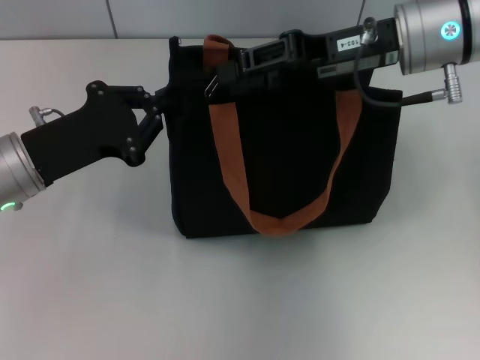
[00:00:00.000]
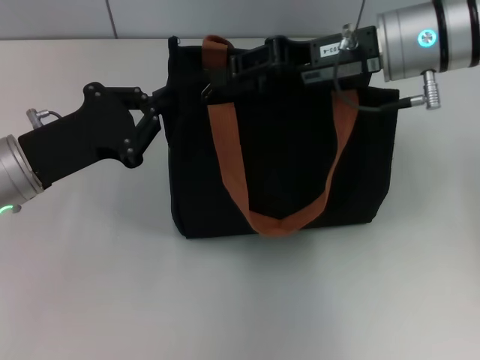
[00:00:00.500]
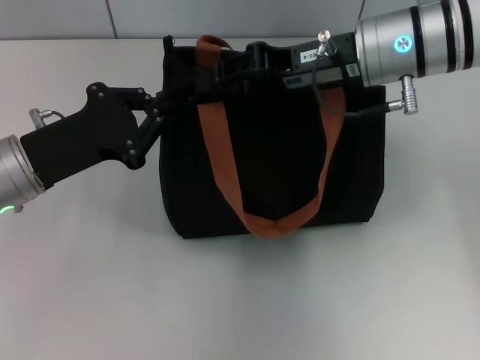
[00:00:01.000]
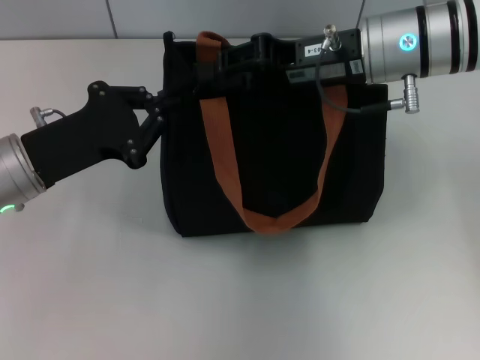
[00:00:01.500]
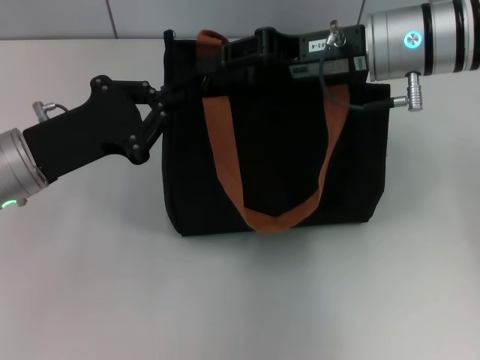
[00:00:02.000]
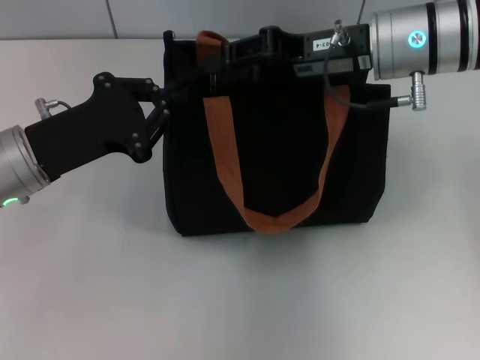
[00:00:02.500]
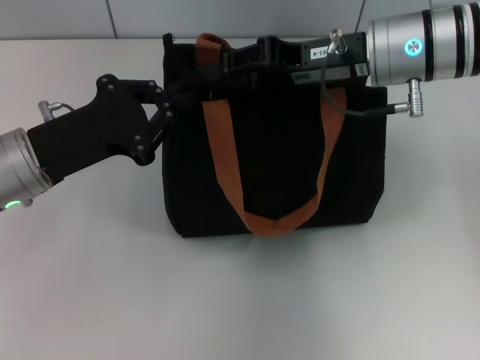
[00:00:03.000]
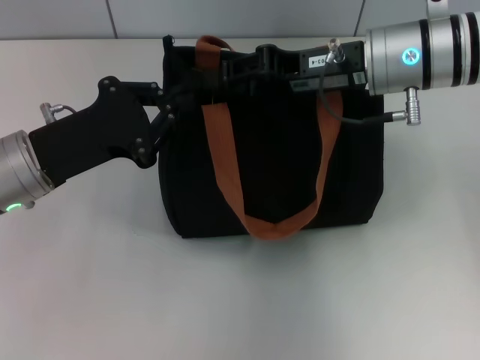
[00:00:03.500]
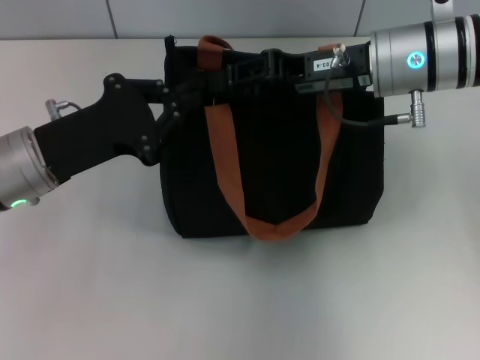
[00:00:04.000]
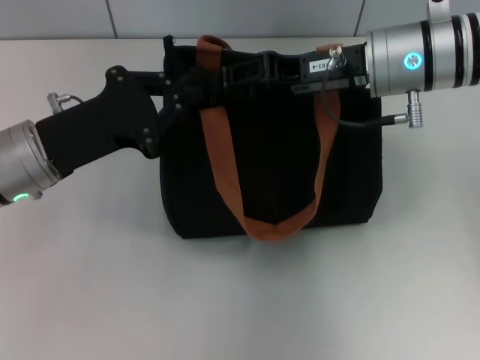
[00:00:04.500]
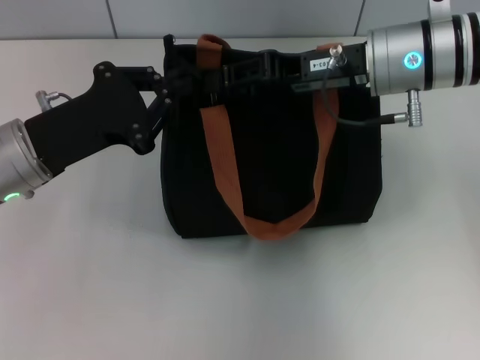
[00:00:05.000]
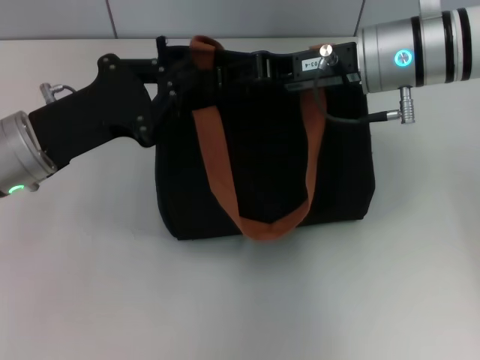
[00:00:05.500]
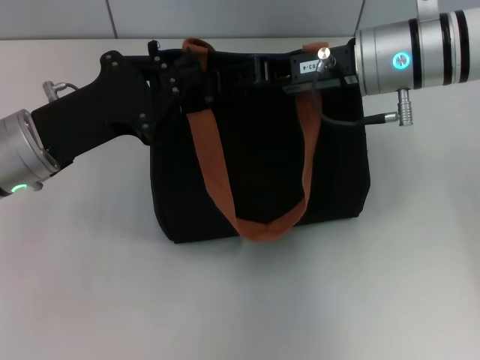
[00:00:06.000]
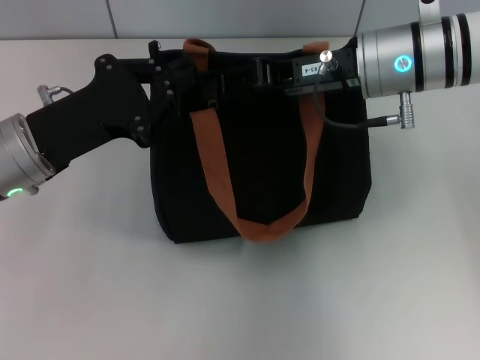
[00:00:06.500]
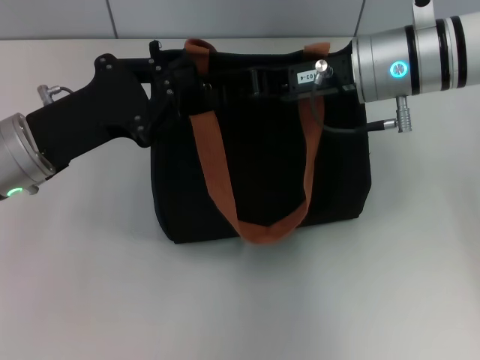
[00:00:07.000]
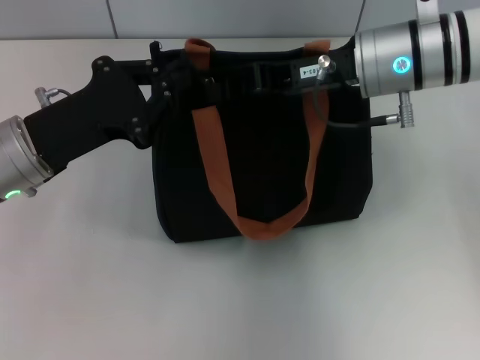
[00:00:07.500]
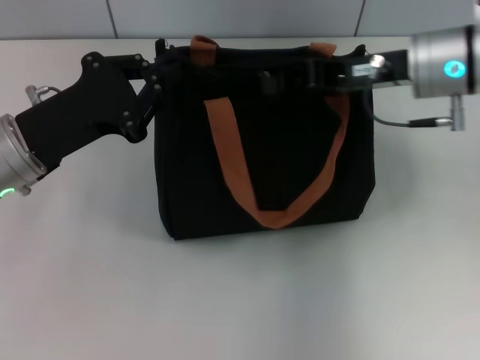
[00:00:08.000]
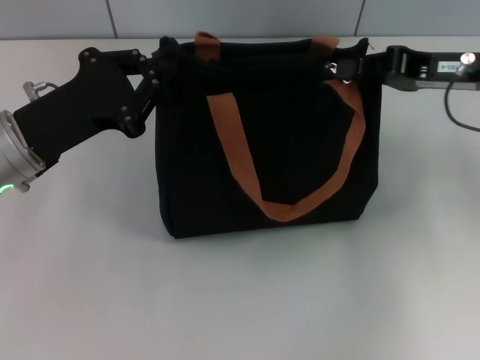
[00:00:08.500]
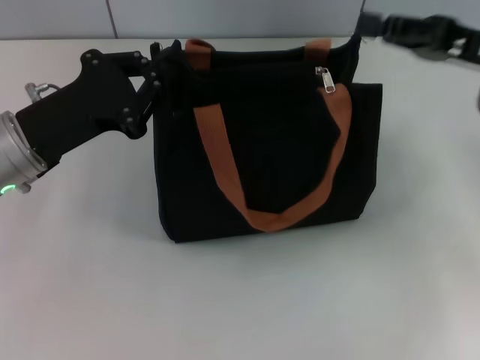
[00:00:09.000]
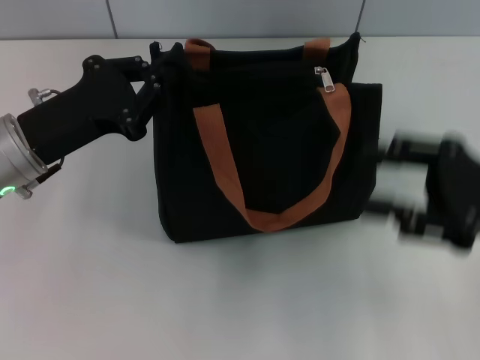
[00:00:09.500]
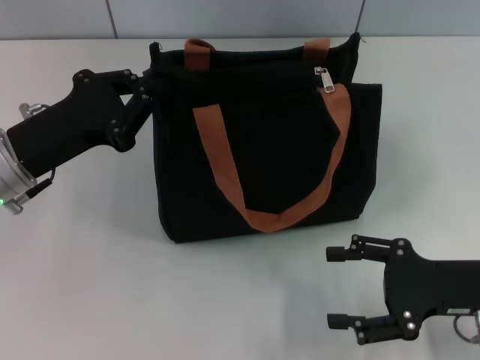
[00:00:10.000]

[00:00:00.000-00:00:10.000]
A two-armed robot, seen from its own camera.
Step, 00:00:00.000 to 00:00:08.500: Pull up the zipper with your right hand.
00:00:00.000 to 00:00:04.000: The grippers make only small movements.
00:00:04.000 to 00:00:06.000: The two grippers keep their place.
00:00:06.000 to 00:00:08.000: The right gripper moves to the right, some 5 cm, and closes.
00:00:08.000 to 00:00:10.000: The right gripper moves backward, downward and to the right, about 20 cm, and opens its fingers.

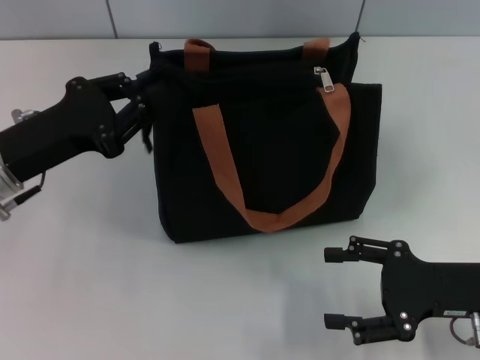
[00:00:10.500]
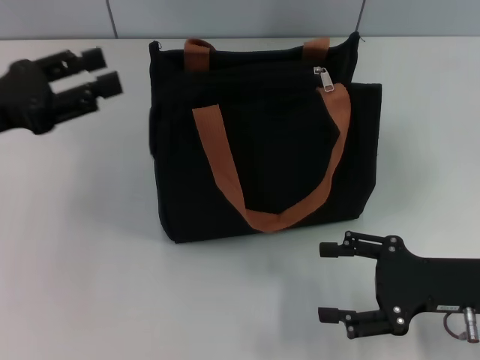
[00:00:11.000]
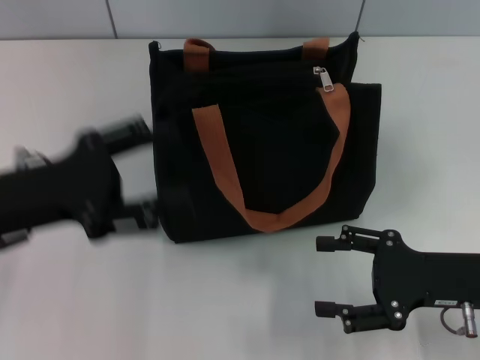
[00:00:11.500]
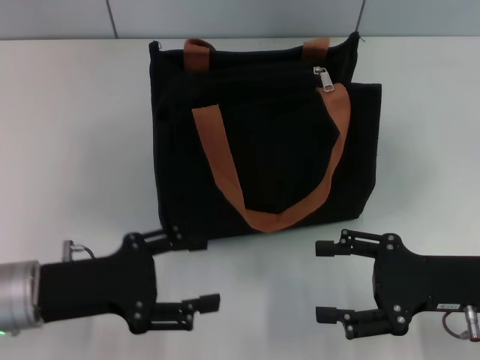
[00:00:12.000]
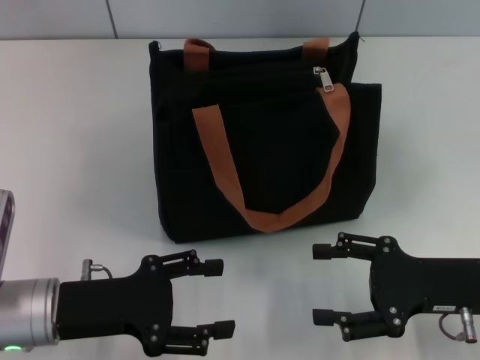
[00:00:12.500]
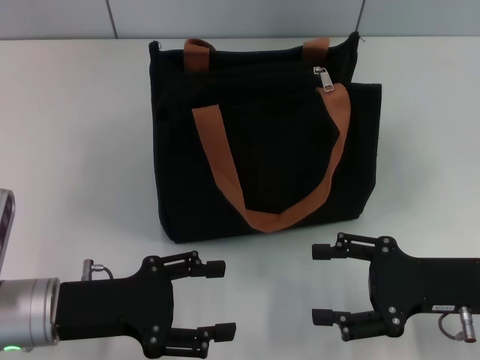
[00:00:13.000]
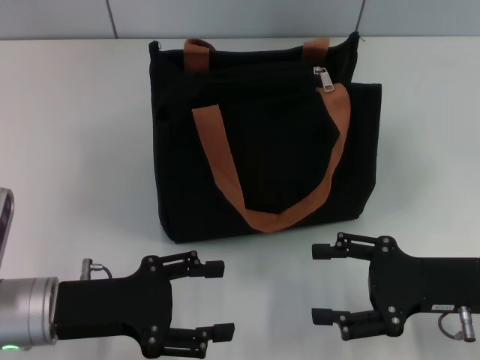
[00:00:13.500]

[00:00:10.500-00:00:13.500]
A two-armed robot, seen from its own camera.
00:00:10.500 to 00:00:12.000: The left gripper is displaced backward and downward by roughly 10 cm, and opens.
00:00:12.000 to 00:00:13.500: The grippers stay close to where they were, moving slightly.
